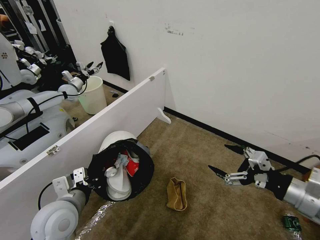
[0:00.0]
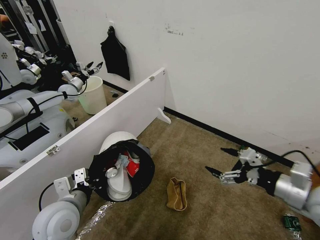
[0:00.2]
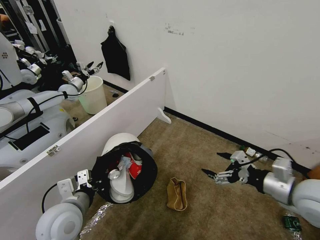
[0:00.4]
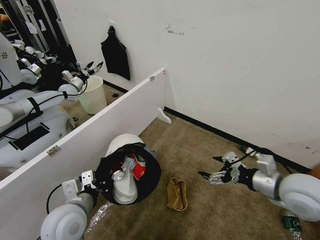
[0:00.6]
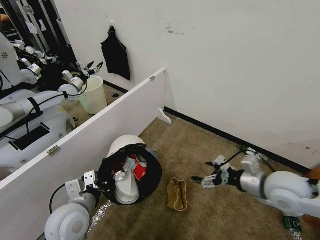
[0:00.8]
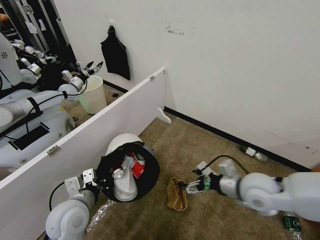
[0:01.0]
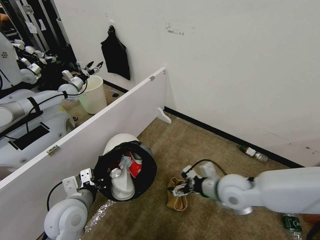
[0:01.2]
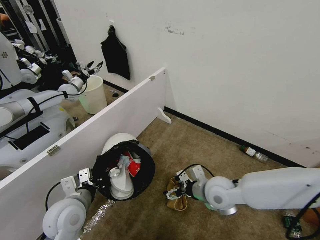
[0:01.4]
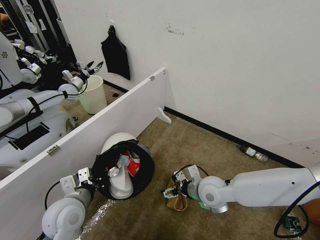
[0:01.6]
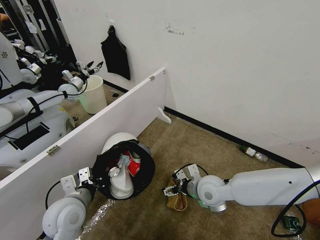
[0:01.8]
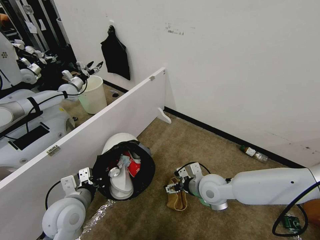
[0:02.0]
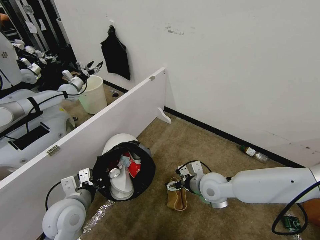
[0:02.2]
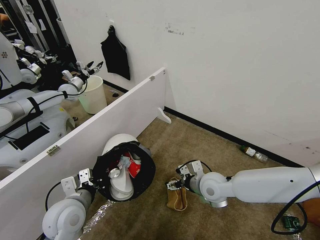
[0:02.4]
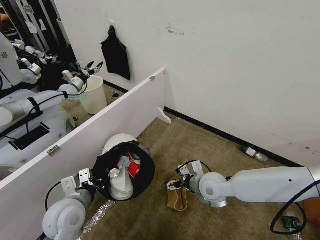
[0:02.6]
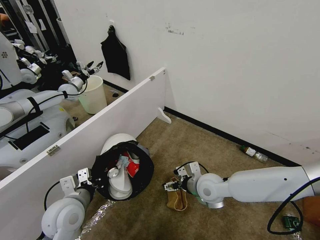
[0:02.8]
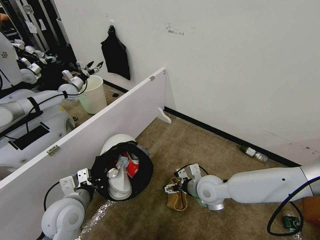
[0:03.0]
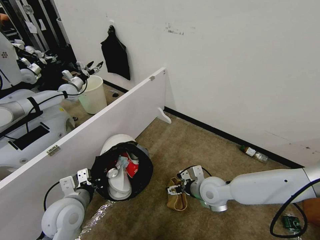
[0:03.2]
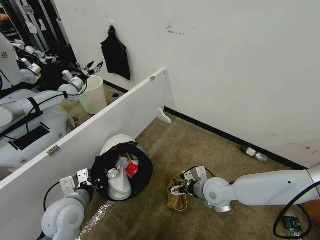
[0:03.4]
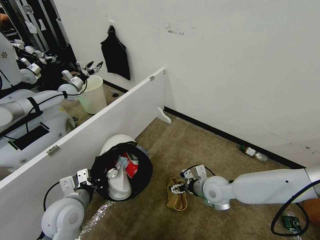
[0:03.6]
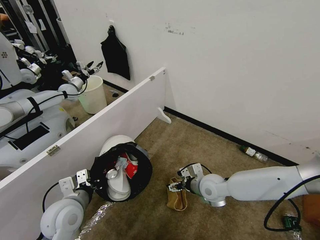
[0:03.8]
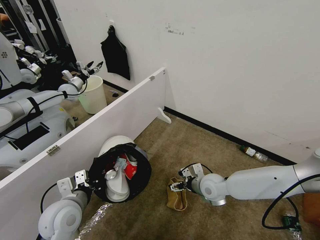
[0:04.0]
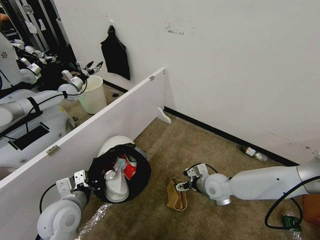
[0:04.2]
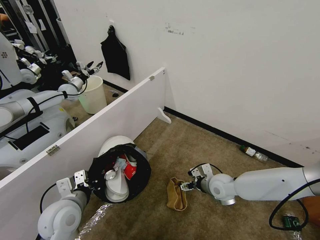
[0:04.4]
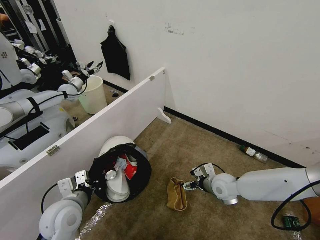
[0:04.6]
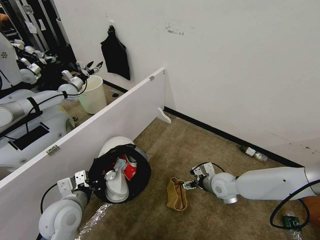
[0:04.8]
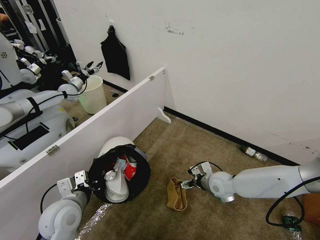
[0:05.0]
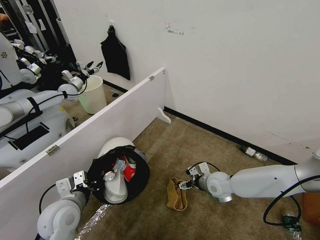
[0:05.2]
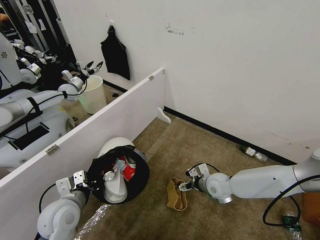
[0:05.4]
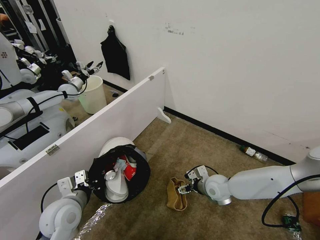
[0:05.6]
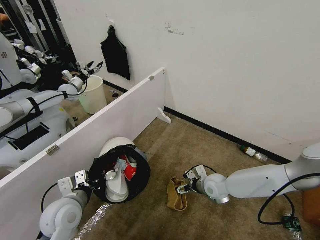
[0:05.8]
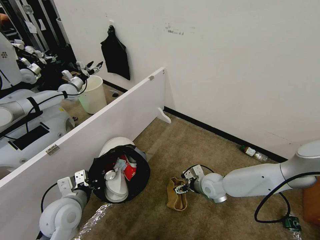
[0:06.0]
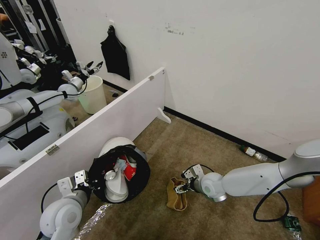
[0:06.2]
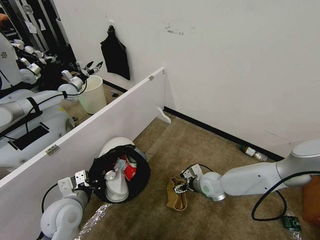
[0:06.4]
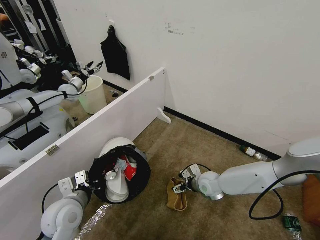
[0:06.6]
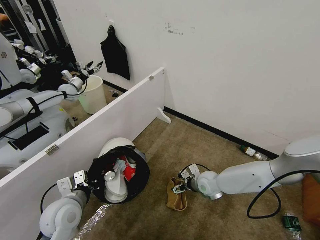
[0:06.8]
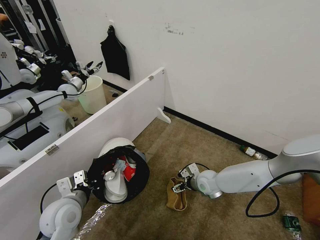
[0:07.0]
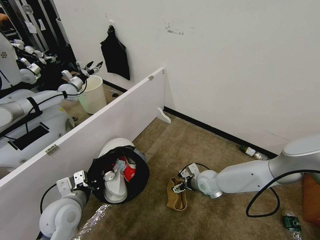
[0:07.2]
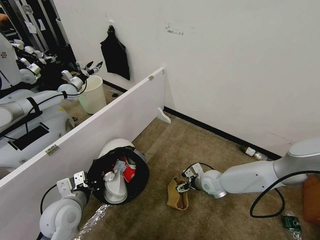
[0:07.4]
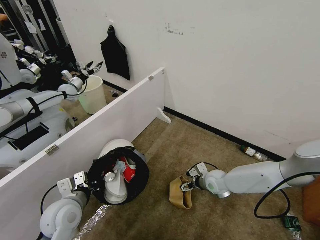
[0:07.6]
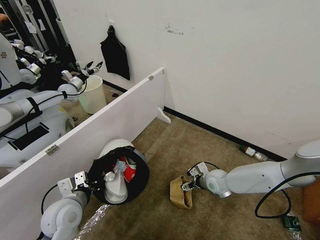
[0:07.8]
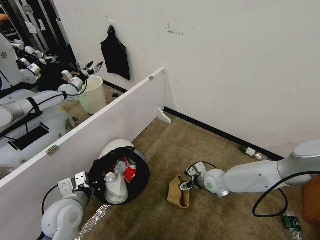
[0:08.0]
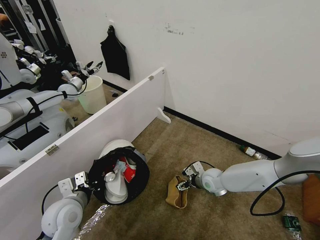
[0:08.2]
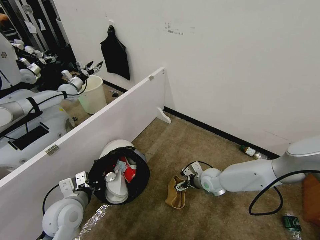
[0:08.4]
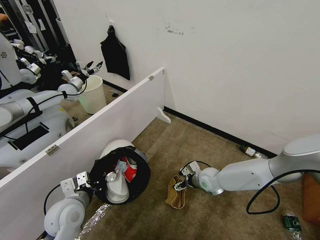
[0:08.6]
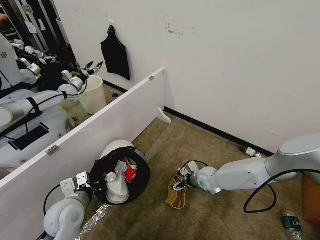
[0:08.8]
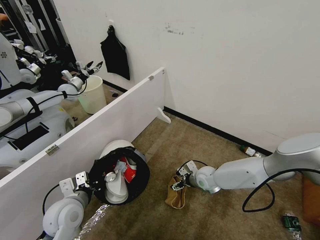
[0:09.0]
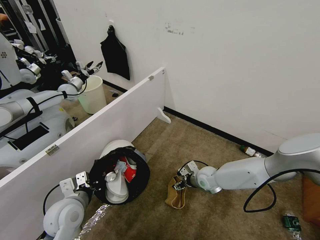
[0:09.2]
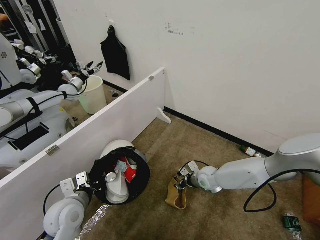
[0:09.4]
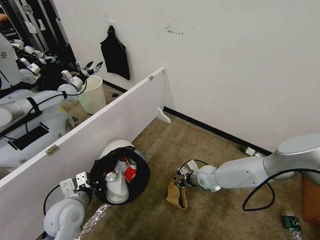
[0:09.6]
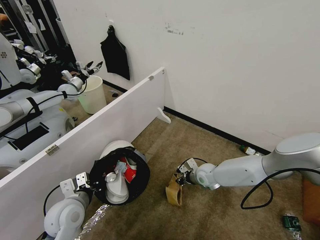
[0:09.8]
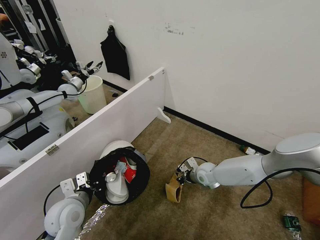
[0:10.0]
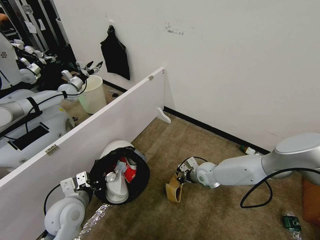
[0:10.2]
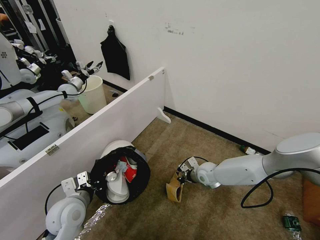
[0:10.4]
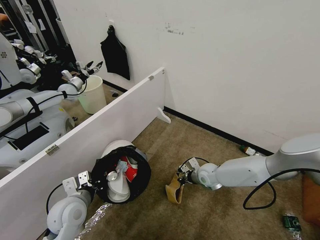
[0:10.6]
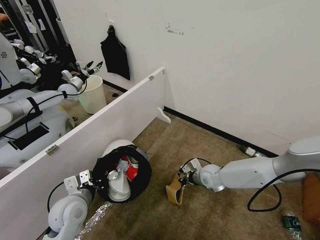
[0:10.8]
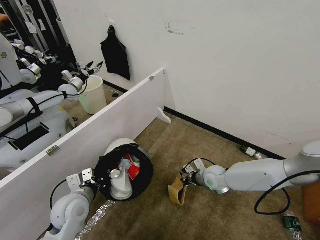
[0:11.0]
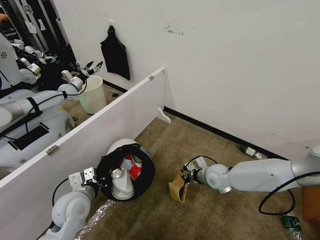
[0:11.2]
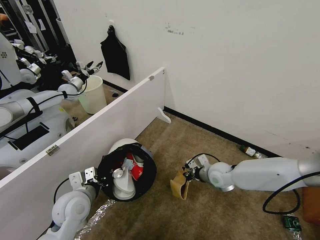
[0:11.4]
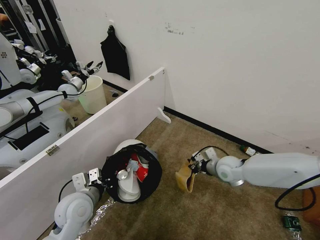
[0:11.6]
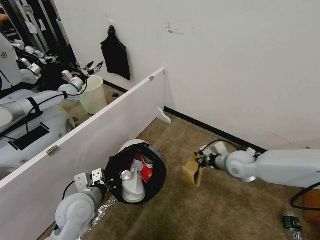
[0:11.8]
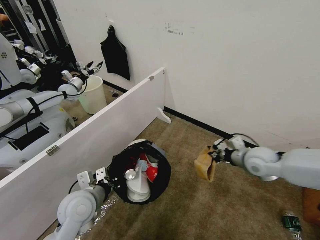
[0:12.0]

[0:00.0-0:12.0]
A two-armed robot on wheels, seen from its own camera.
Task of the whole recording: Pick up the trash bin and place the garbage on the floor into it.
0:00.0 to 0:01.6: The right gripper goes roughly 30 cm to the left, downward and forward.
0:01.6 to 0:03.0: The grippers move only a little.
0:03.0 to 0:04.4: The right gripper travels to the right by about 5 cm.
0:04.4 to 0:06.0: The grippers stay close to where they were, moving slightly.
0:06.0 to 0:09.0: There are only small adjustments of the grippers.
0:09.0 to 0:10.4: The right gripper closes its fingers.
0:10.4 to 0:12.0: The right gripper is displaced upward and to the right by approximately 20 cm.

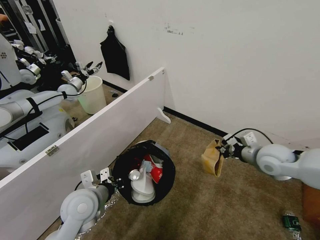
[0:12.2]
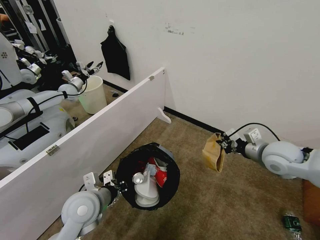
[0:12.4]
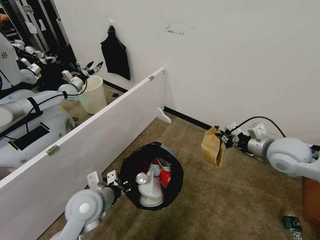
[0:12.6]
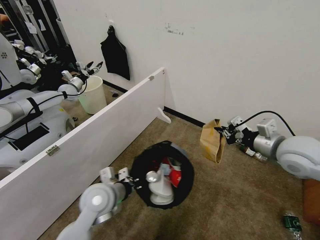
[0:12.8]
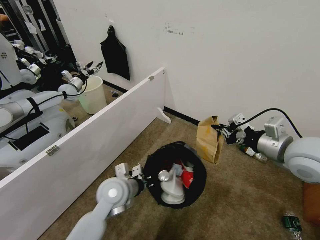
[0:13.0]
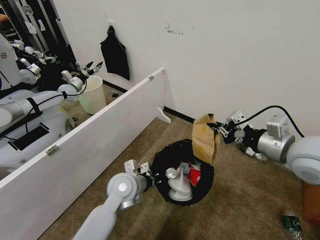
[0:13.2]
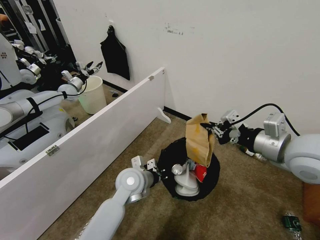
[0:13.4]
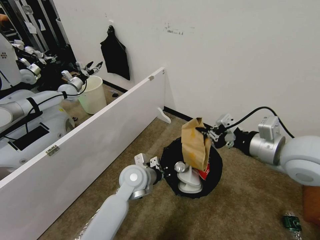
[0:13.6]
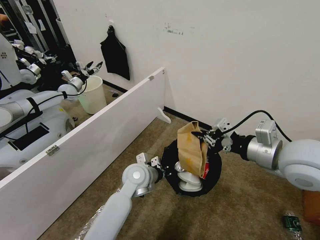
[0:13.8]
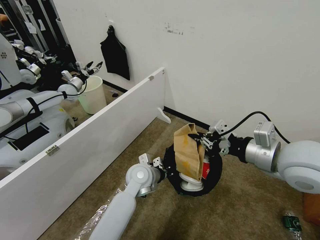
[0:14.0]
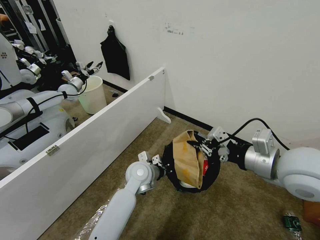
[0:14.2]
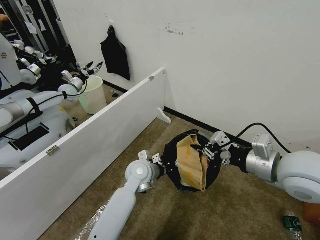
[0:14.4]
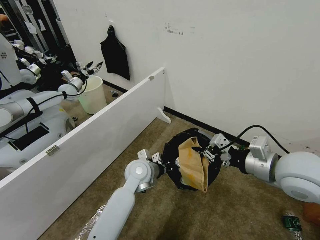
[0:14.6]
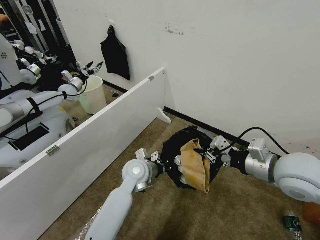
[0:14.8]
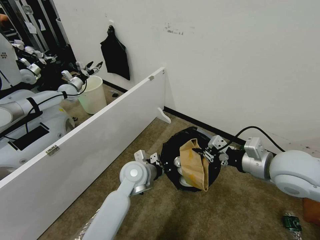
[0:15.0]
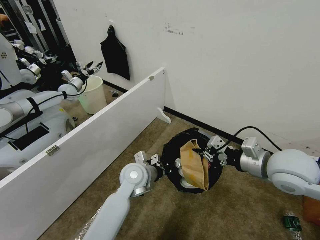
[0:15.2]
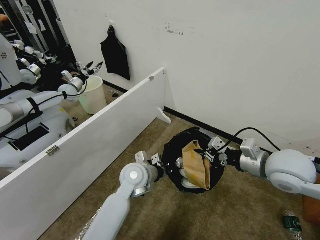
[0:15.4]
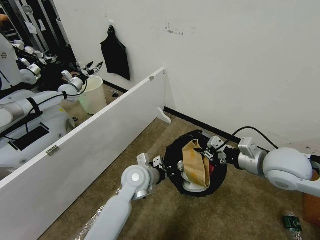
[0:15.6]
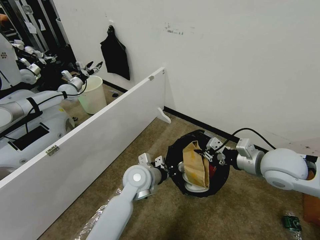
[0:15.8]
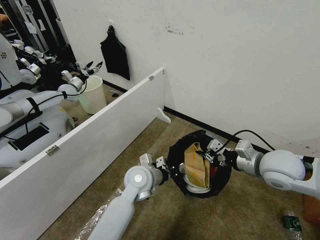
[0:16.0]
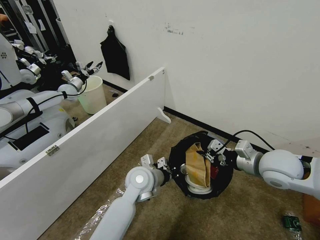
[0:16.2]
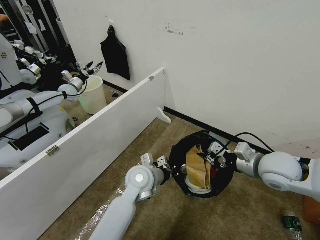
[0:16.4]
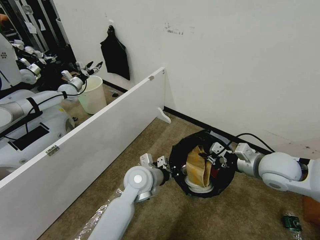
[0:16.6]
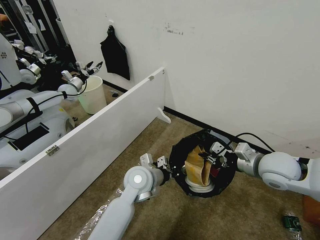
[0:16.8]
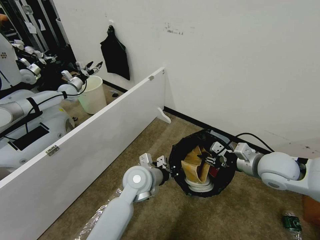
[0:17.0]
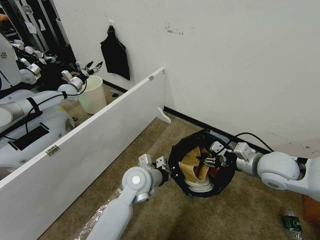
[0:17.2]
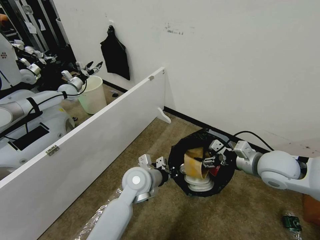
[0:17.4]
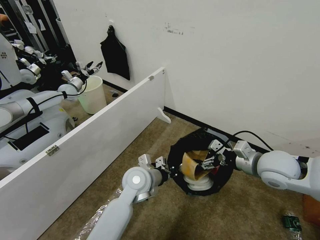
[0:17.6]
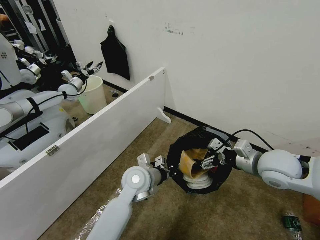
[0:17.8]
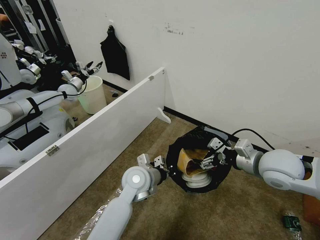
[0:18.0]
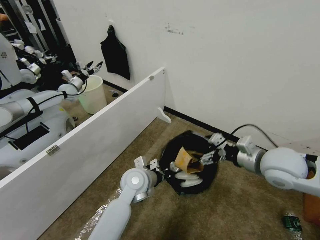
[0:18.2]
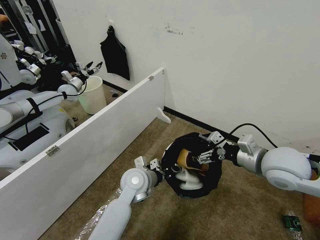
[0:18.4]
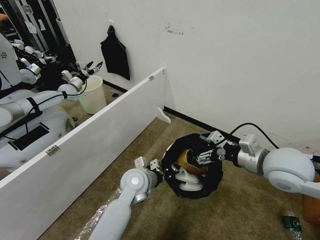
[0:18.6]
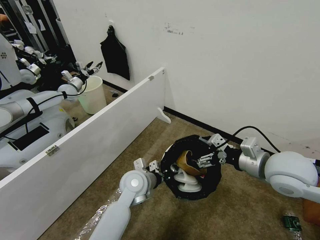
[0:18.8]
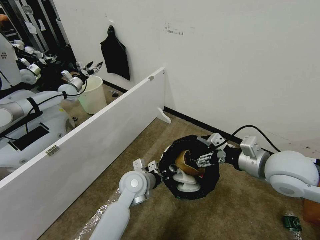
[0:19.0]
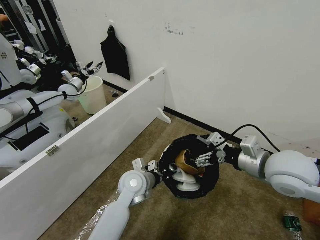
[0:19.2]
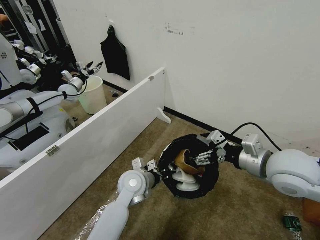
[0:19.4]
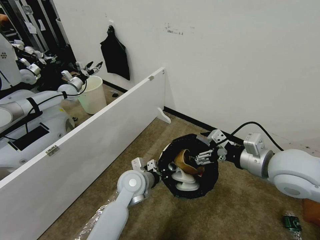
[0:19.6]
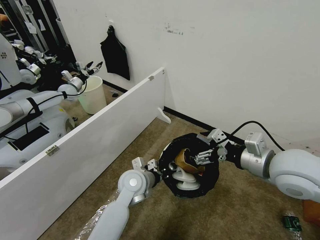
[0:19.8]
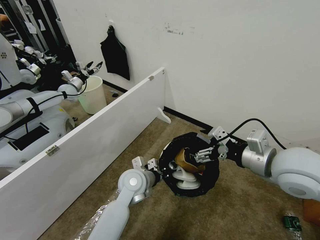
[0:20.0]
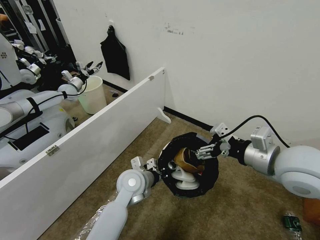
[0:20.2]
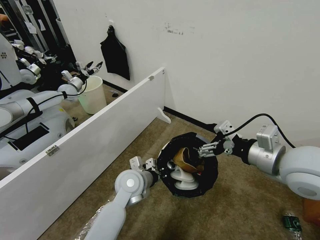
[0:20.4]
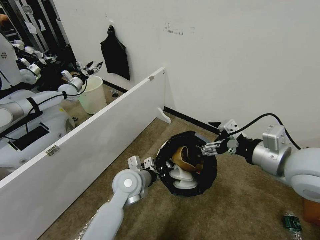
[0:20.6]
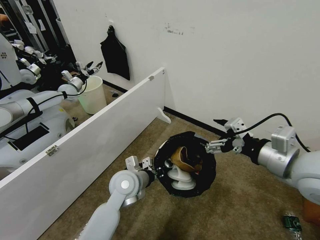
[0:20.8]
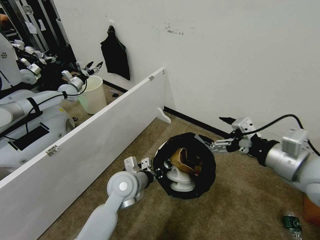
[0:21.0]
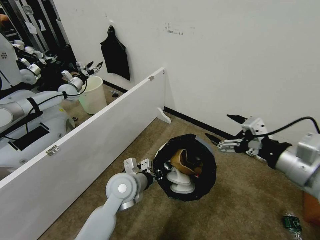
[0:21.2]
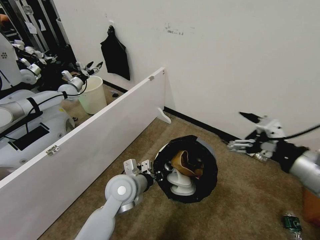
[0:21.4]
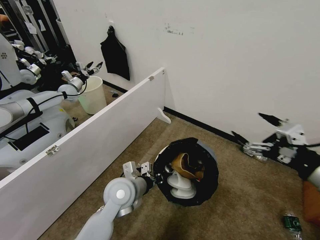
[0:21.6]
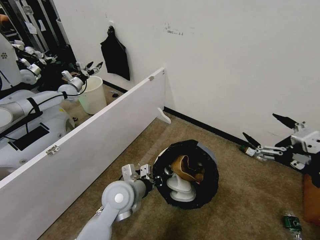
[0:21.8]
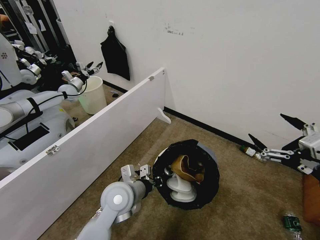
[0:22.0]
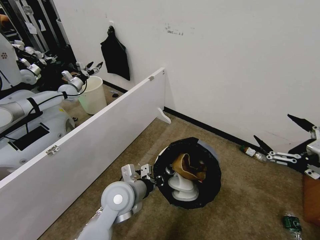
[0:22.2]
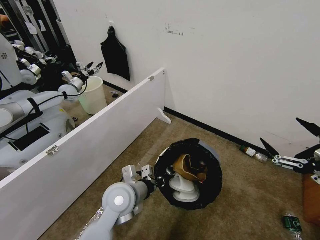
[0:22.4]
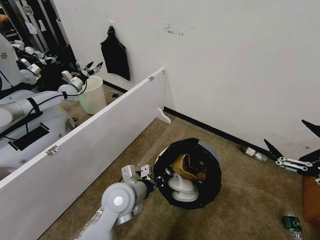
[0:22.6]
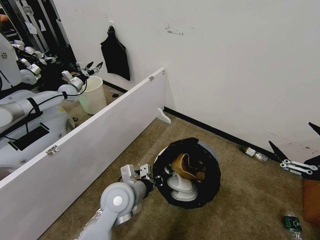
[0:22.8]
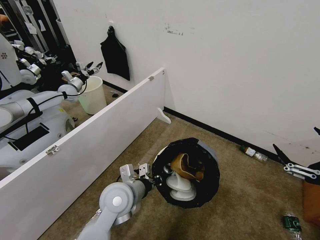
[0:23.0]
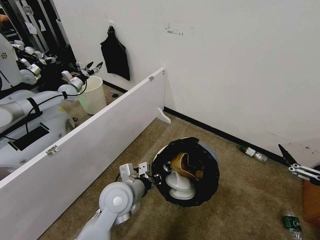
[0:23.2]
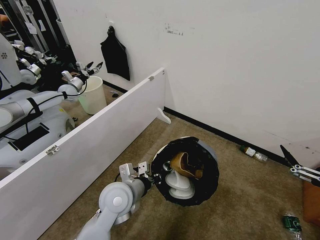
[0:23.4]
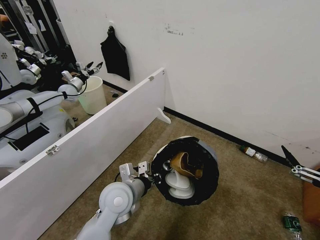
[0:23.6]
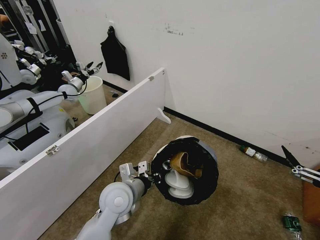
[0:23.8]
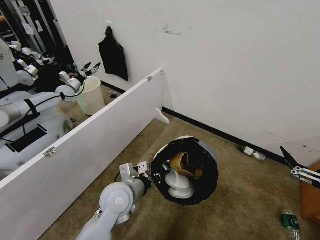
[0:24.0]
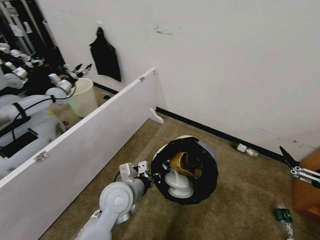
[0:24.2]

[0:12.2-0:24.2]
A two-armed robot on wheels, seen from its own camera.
Task of the whole recording: Pick up the trash bin and place the garbage on the floor into it.
0:12.2 to 0:13.8: The right gripper travels upward, backward and to the left by roughly 15 cm. The left gripper heads to the right and forward, covering some 20 cm.
0:13.8 to 0:15.2: The right gripper is displaced downward by roughly 5 cm.
0:15.2 to 0:16.6: The right gripper moves downward, roughly 5 cm.
0:16.6 to 0:18.2: The right gripper opens its fingers.
0:18.2 to 0:19.8: The right gripper shifts by about 5 cm.
0:19.8 to 0:21.2: The right gripper moves backward, approximately 5 cm.
0:21.2 to 0:22.6: The right gripper heads backward and to the right, covering approximately 15 cm.
